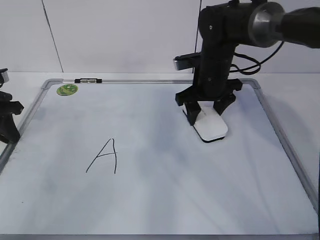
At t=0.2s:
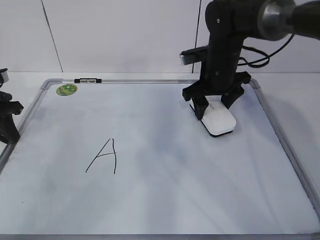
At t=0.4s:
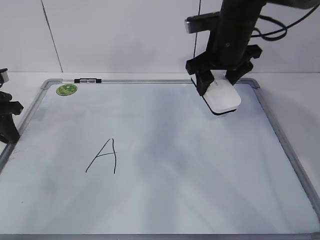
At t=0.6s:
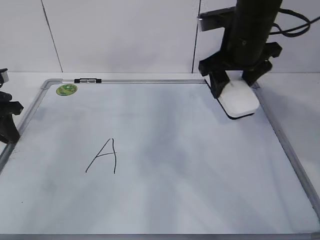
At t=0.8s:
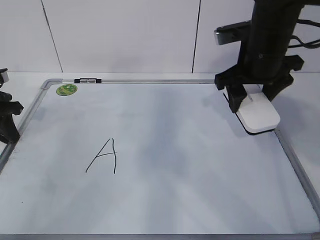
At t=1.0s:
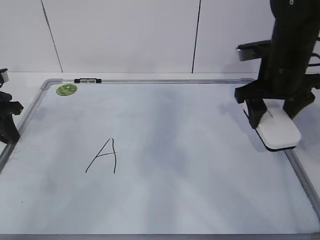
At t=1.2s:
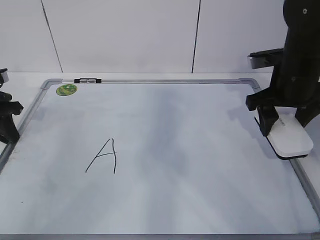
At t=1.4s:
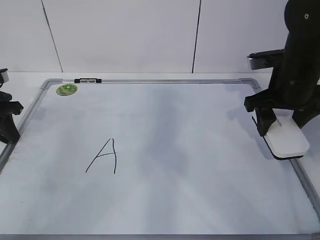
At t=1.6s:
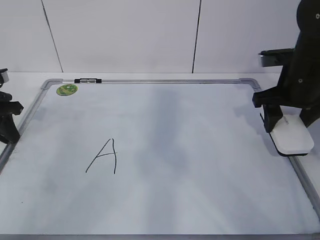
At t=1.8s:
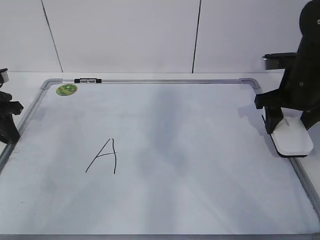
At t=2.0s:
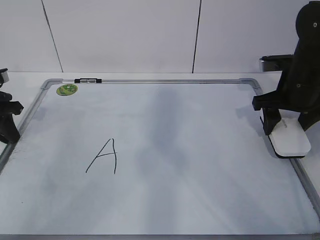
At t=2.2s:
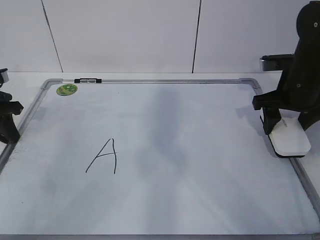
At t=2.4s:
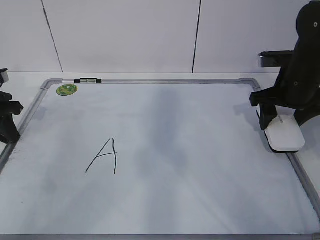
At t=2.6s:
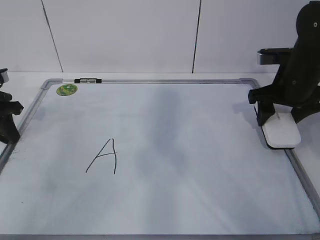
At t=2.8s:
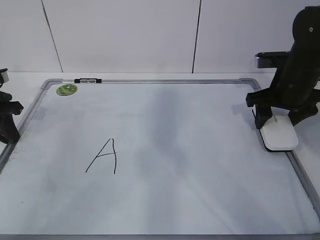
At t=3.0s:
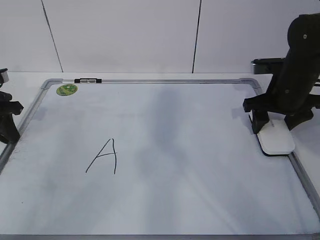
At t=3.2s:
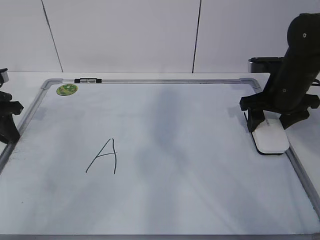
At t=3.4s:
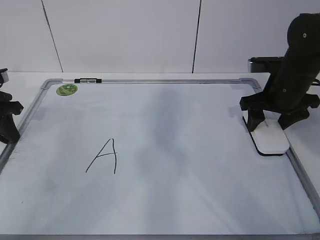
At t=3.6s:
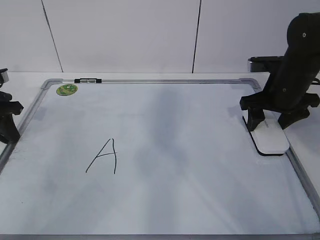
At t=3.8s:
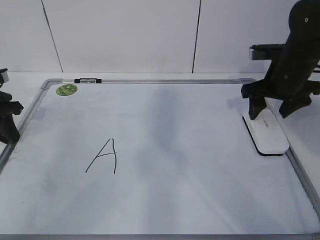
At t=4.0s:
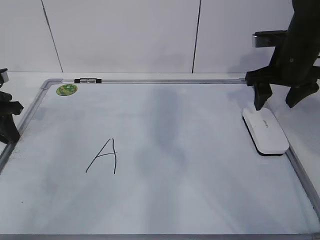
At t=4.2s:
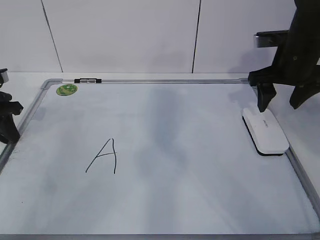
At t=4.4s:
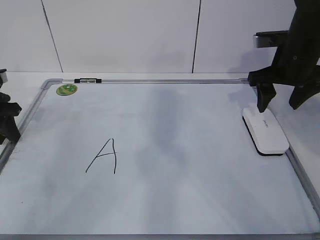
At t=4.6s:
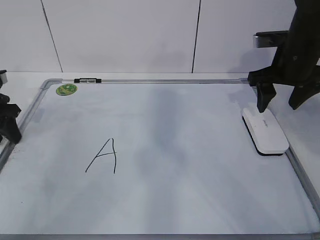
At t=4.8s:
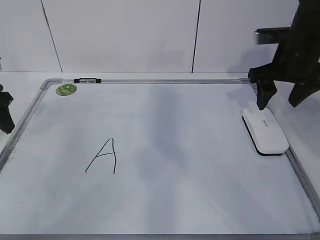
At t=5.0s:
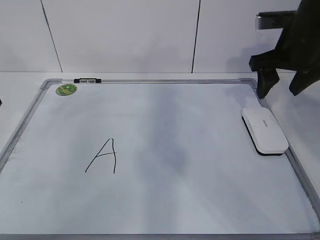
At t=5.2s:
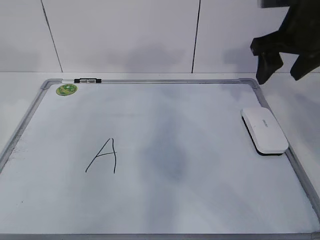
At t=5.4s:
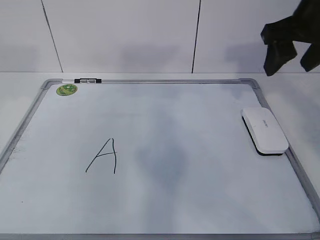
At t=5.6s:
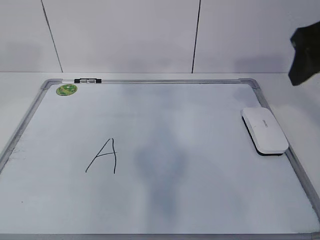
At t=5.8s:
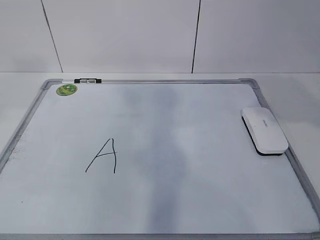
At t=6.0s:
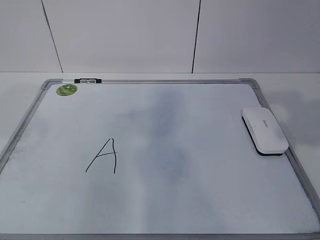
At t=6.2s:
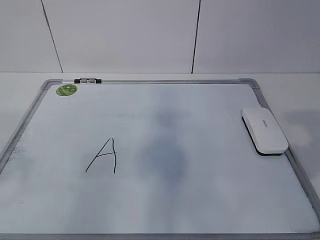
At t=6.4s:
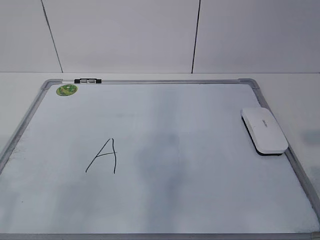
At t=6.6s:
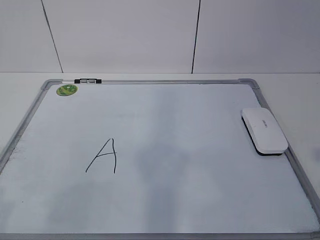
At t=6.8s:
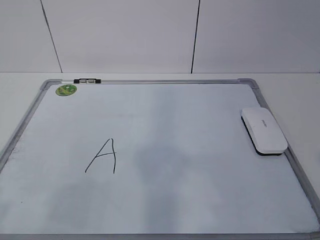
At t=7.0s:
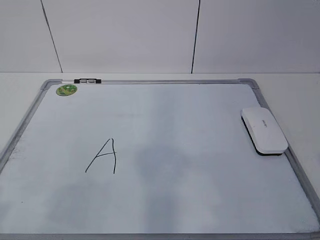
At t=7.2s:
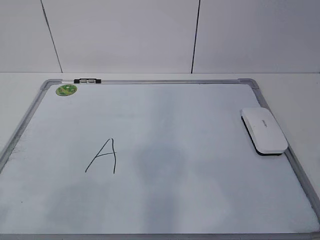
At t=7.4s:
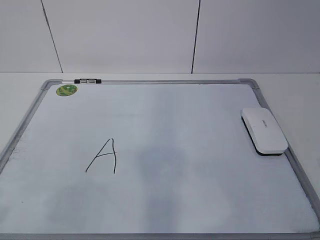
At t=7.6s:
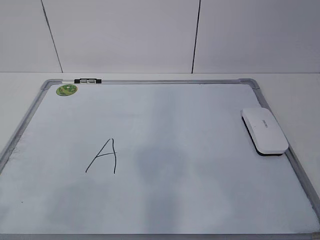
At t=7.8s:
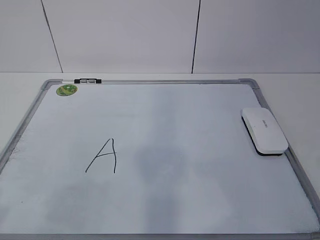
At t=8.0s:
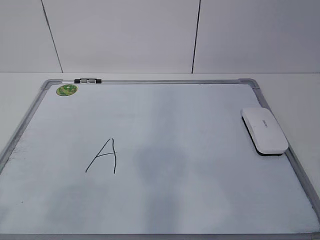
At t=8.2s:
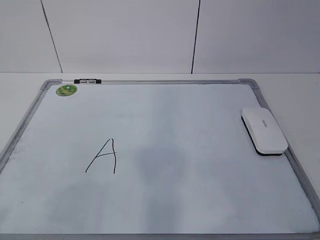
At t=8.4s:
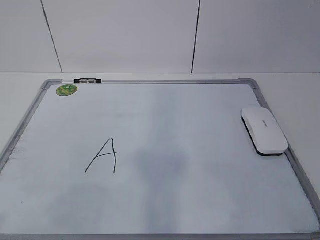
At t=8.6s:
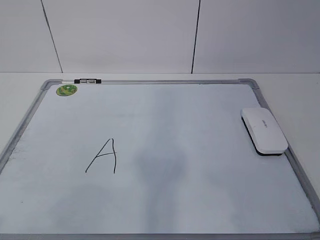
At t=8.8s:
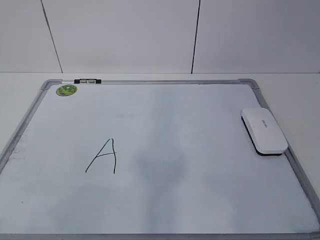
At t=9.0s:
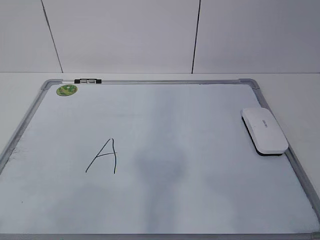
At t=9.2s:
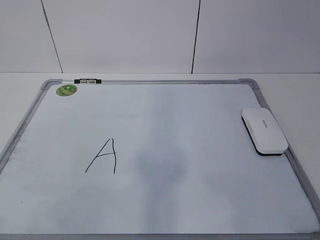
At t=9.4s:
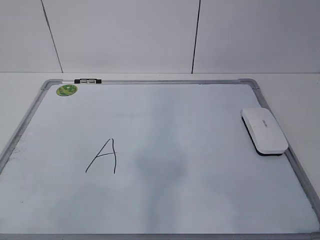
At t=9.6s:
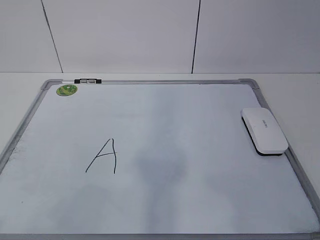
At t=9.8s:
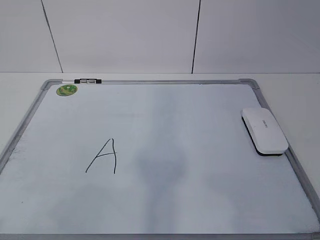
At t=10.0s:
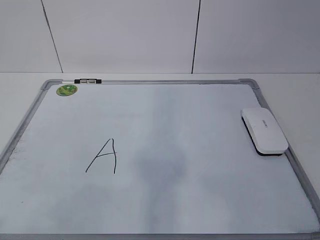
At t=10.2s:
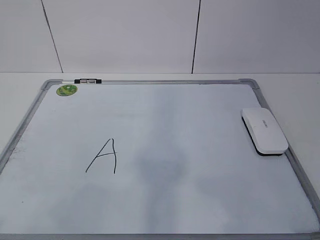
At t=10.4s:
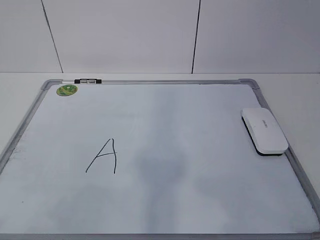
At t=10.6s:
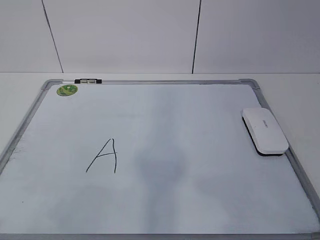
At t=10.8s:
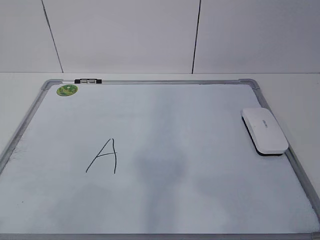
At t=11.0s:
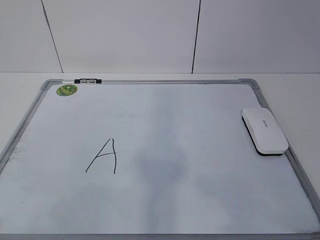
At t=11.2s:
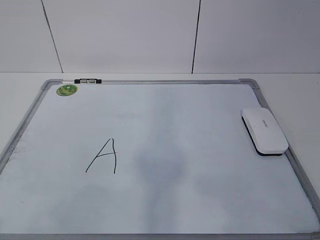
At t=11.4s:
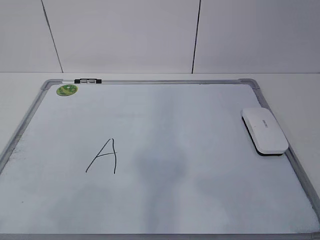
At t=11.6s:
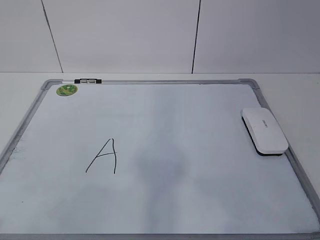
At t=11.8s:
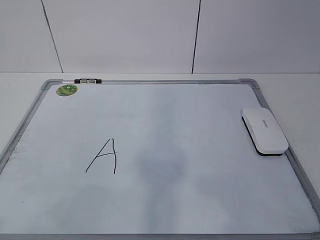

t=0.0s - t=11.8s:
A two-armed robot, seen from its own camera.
Task of the whole recording: pick up the eraser on the blackboard and erase the letter "a".
t=0.0s - t=1.4s: The right gripper heads to the right and backward, covering approximately 15 cm.
t=1.4s - t=3.0s: The right gripper changes place by about 5 cm.
t=3.0s - t=4.4s: The right gripper heads upward, covering approximately 5 cm.
t=4.4s - t=6.0s: The grippers both shift backward and upward by about 30 cm.
t=6.0s - t=7.4s: The grippers both shift backward and downward by roughly 15 cm.
t=10.4s - t=11.8s: Both grippers stay about where they are.

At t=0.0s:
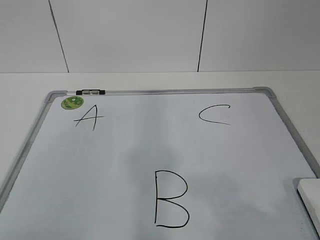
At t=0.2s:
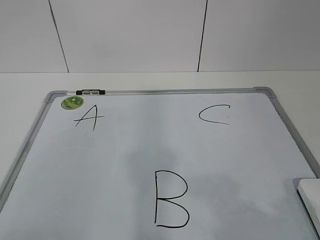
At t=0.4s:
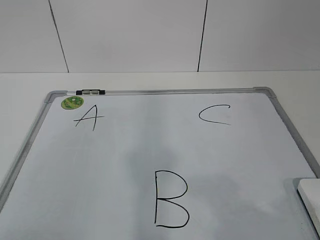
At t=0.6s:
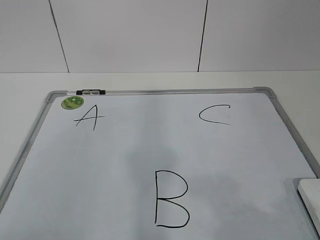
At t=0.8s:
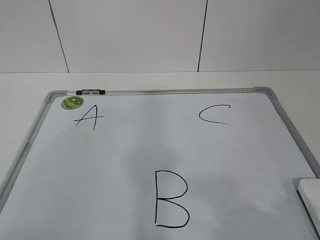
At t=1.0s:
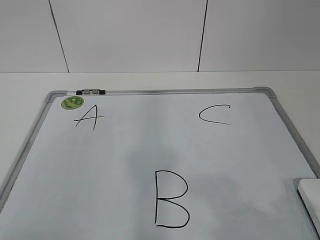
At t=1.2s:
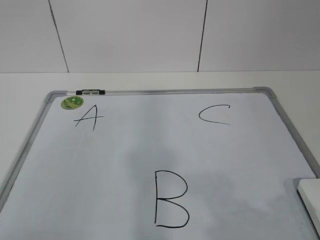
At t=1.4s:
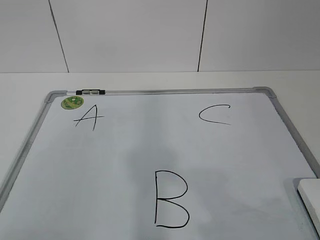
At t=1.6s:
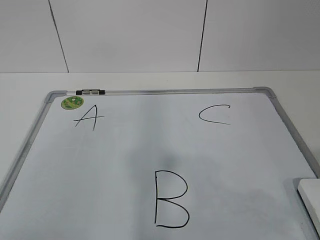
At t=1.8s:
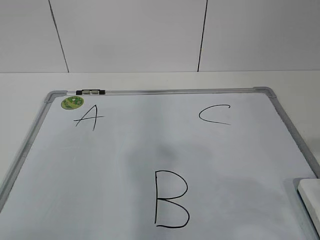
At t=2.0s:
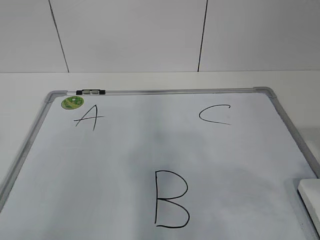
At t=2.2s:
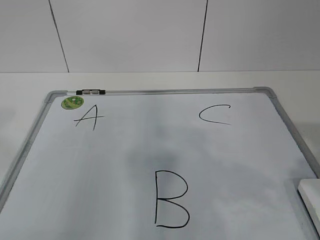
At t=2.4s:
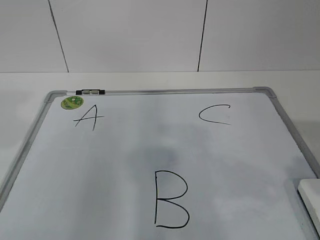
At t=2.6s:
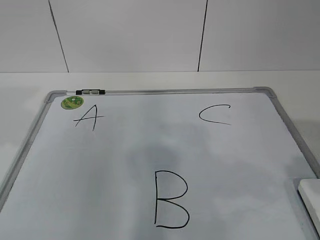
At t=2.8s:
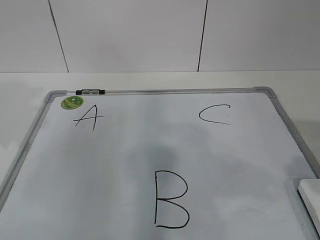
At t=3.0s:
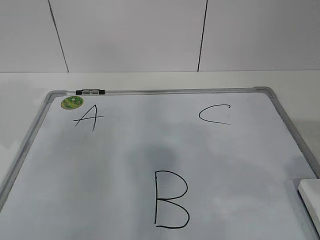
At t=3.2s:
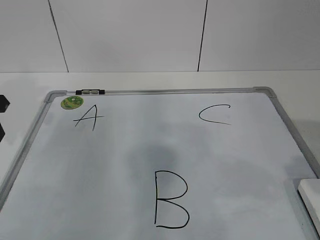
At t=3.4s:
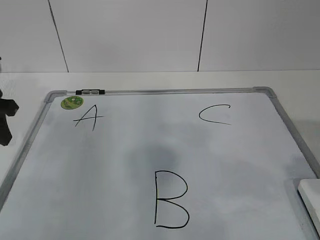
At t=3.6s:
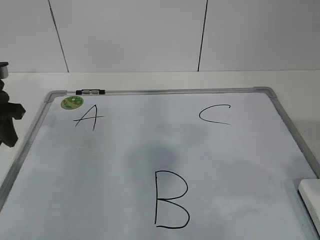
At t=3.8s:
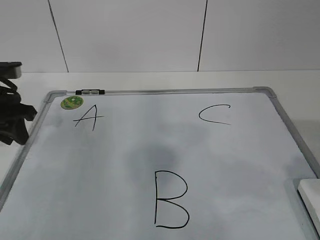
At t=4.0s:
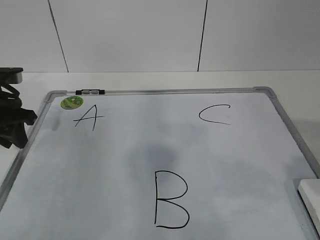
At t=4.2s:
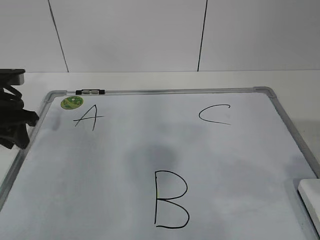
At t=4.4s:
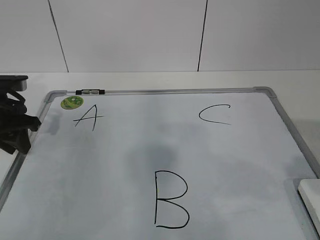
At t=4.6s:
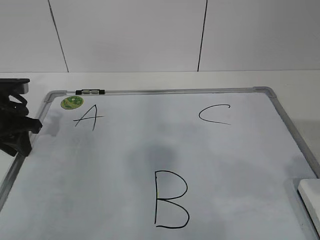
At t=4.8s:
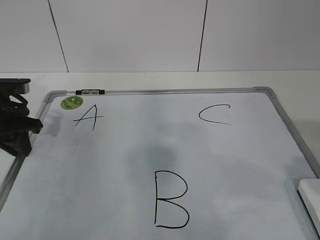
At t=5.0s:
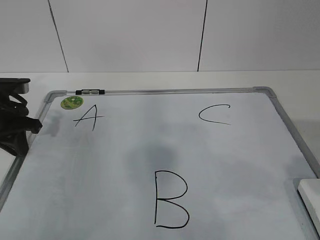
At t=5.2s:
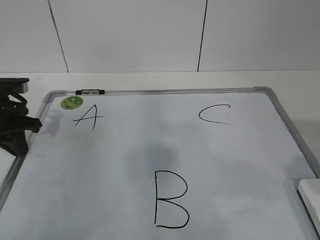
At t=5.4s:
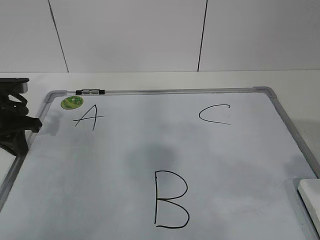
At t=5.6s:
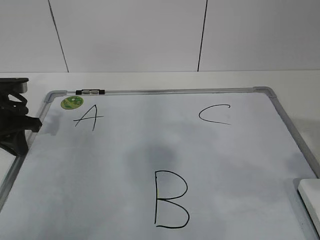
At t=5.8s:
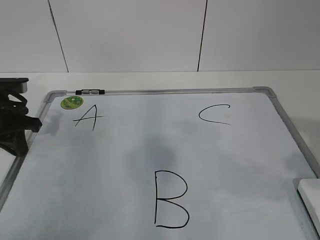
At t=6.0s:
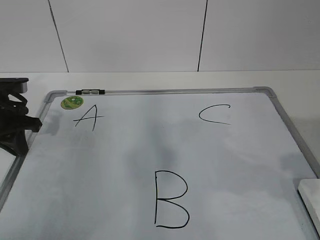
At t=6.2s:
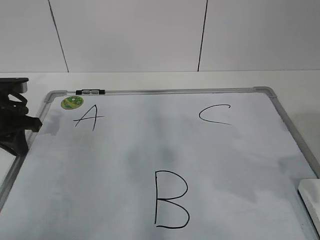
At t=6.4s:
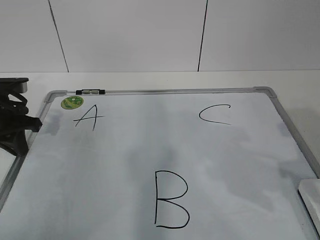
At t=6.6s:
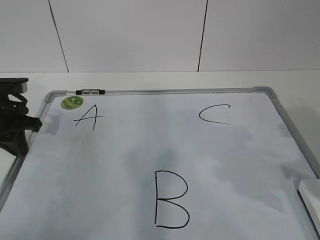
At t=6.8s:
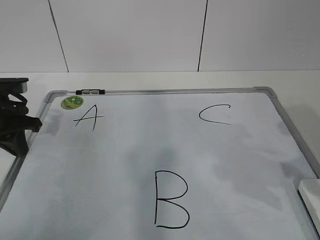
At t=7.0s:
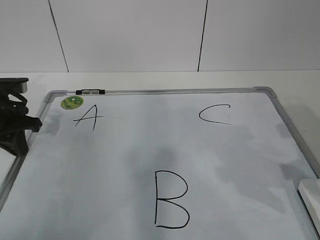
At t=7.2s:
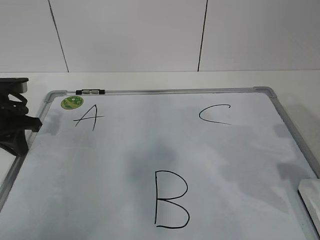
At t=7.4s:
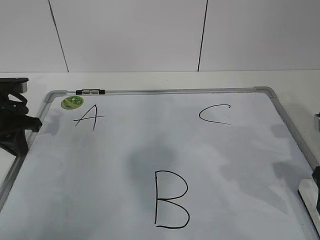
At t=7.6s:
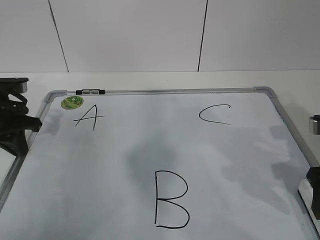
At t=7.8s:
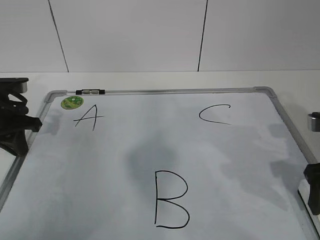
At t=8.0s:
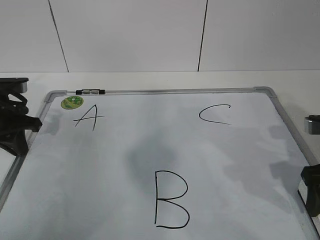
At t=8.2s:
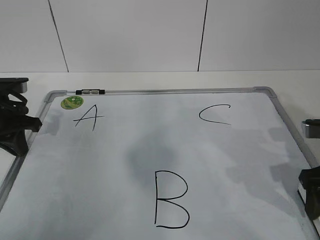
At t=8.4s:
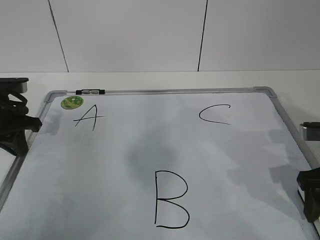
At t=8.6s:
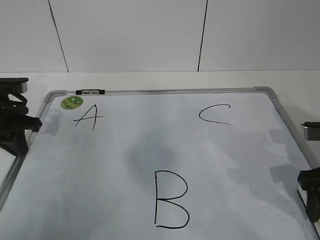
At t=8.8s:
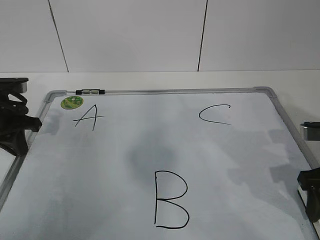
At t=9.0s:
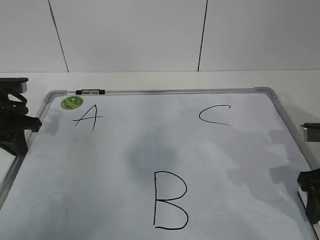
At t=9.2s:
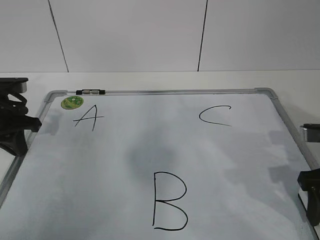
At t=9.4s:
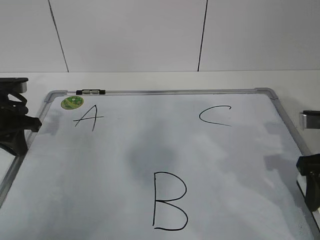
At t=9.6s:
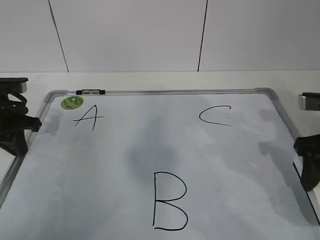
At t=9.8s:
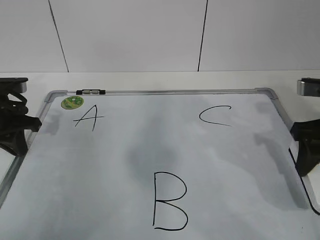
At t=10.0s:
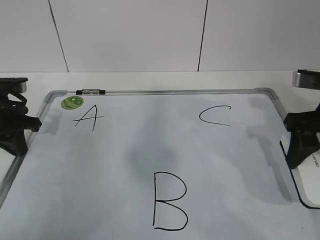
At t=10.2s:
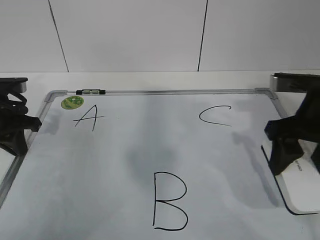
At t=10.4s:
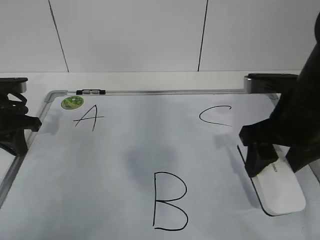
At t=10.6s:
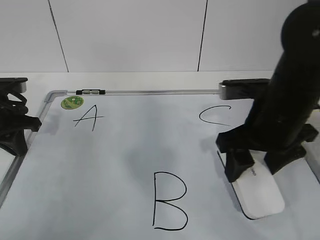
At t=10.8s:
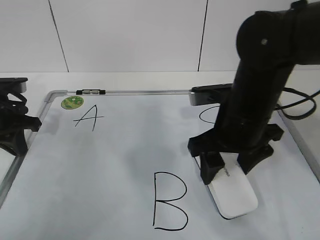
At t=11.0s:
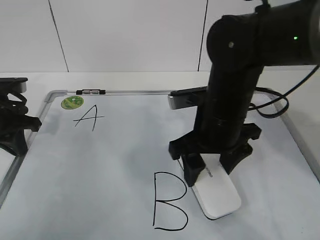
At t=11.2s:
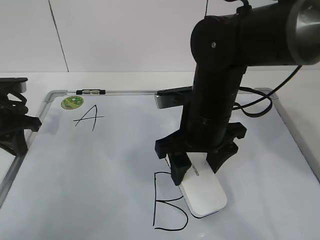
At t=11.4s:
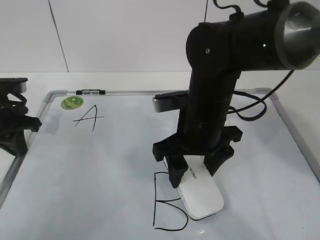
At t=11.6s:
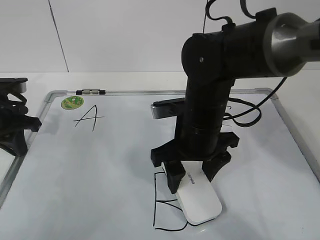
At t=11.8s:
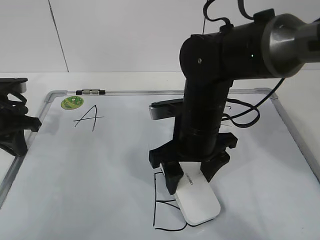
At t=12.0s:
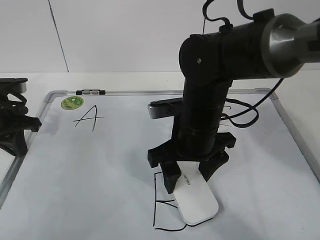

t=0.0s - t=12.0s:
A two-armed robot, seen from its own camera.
Task of the whole recording: pick up the eraser on the blackboard and erase the letter "B".
Step, t=0.0s - t=4.0s: Hold the drawing board steady with your left hand.
Step, t=4.2s - t=7.4s: Grab the eraser with your right hand.
Step, t=7.6s - t=11.0s: Put down the eraser with your right hand.
t=1.6s - t=3.0s: The left gripper moves forward, roughly 30 cm. The right gripper is displaced forward by roughly 10 cm.
t=3.0s - t=4.4s: The left gripper heads downward and forward, covering some 10 cm.
t=4.4s - t=6.0s: The left gripper closes up.
t=6.0s - t=7.6s: The right gripper is displaced forward and downward by roughly 15 cm, and closes, then reopens.
t=7.6s - t=9.0s: The right gripper closes up.
t=9.0s - t=10.4s: The right gripper travels to the left and upward by approximately 10 cm.
t=10.4s - t=12.0s: The right gripper goes about 15 cm to the left and downward, and opens.
